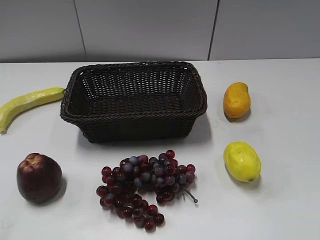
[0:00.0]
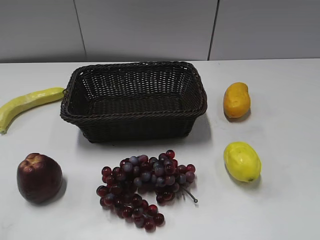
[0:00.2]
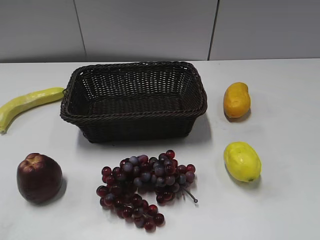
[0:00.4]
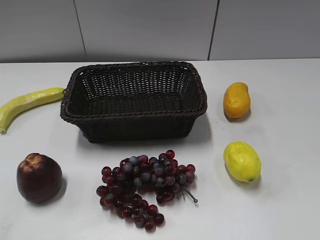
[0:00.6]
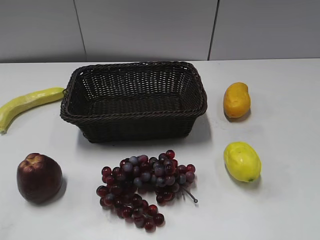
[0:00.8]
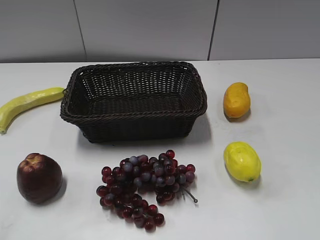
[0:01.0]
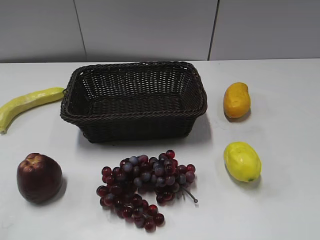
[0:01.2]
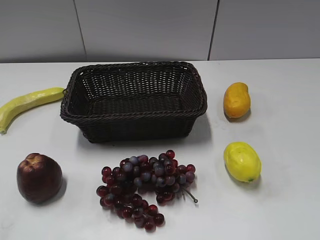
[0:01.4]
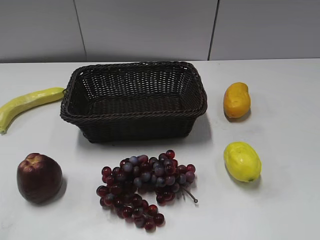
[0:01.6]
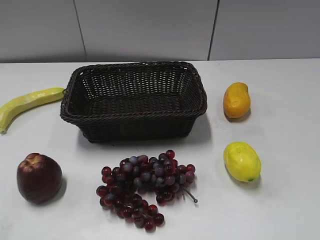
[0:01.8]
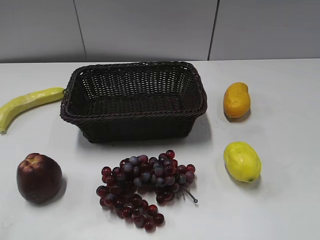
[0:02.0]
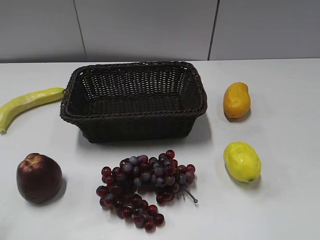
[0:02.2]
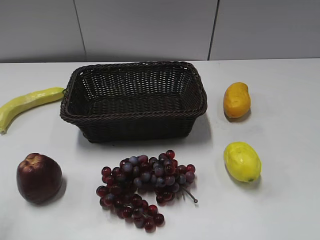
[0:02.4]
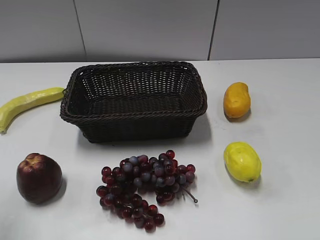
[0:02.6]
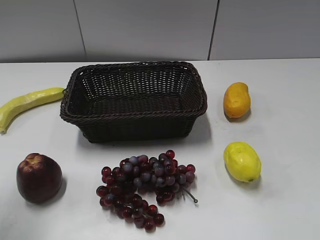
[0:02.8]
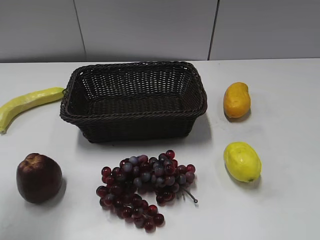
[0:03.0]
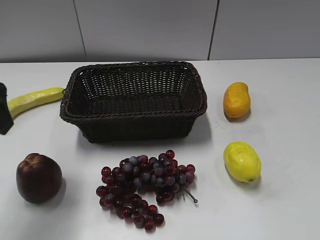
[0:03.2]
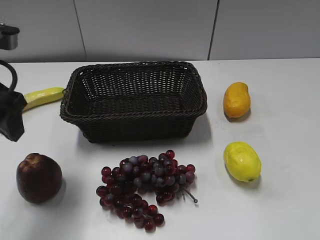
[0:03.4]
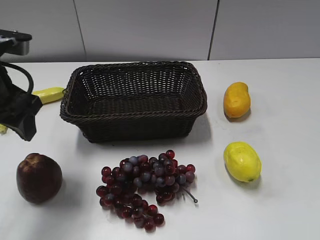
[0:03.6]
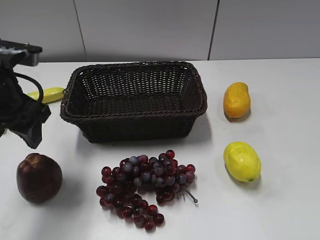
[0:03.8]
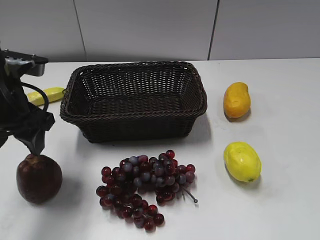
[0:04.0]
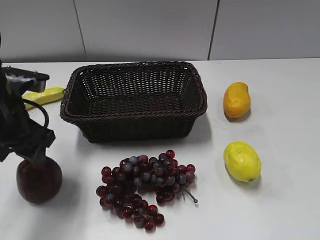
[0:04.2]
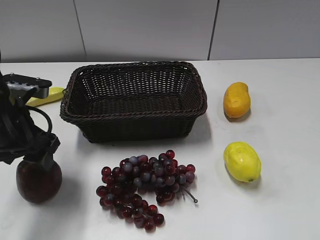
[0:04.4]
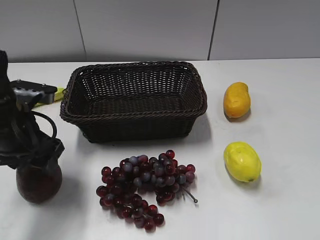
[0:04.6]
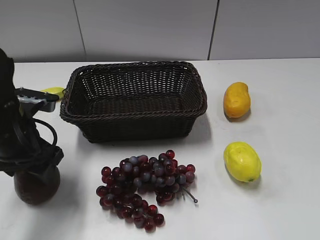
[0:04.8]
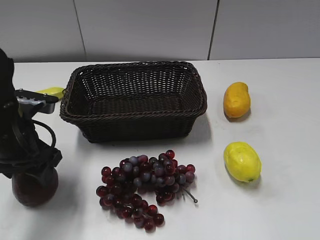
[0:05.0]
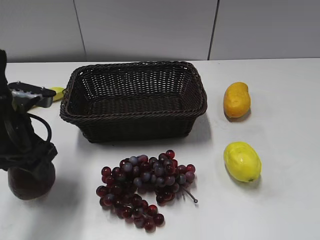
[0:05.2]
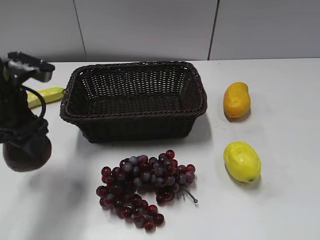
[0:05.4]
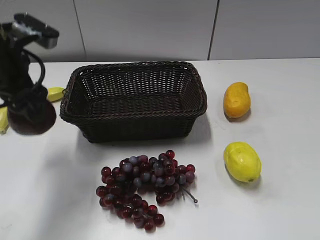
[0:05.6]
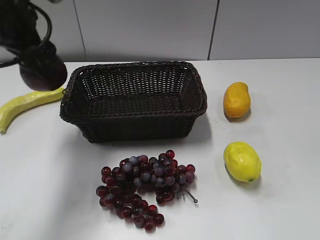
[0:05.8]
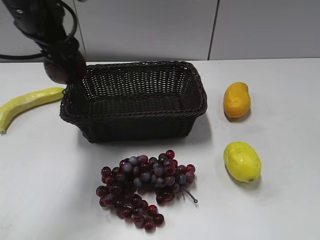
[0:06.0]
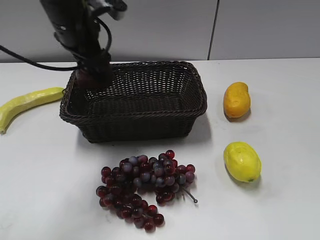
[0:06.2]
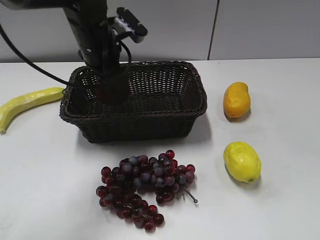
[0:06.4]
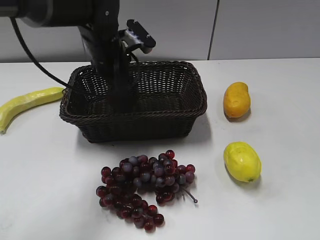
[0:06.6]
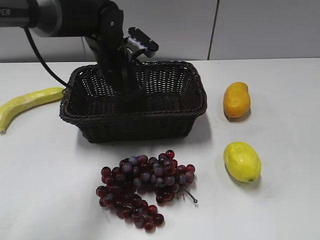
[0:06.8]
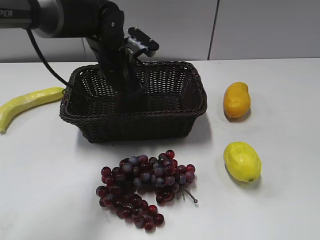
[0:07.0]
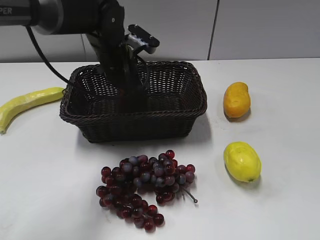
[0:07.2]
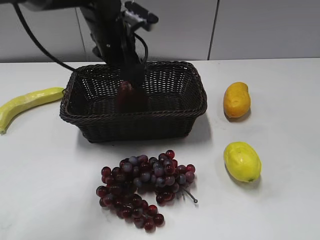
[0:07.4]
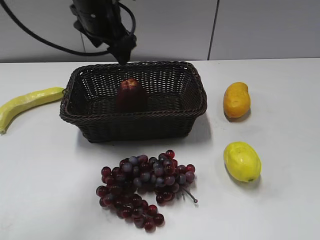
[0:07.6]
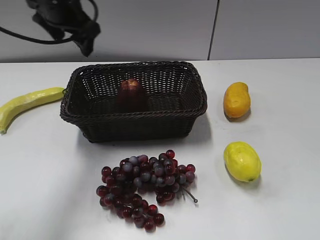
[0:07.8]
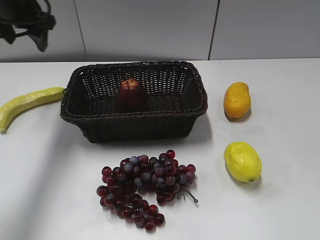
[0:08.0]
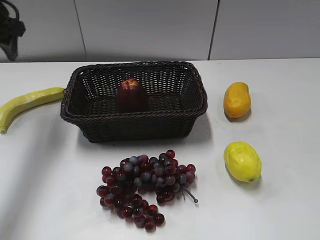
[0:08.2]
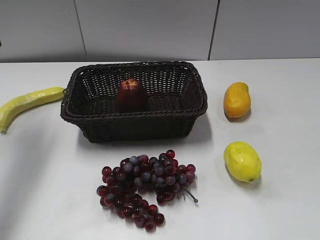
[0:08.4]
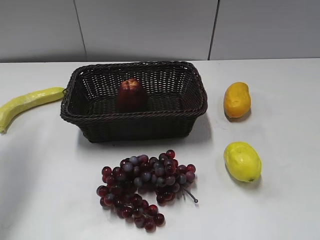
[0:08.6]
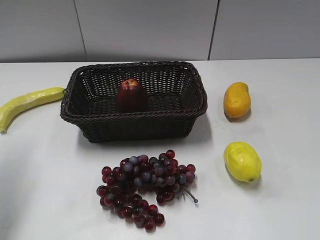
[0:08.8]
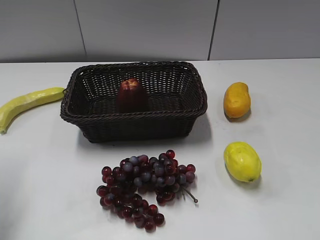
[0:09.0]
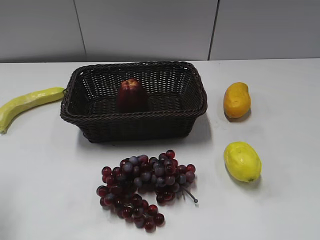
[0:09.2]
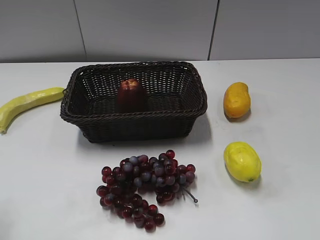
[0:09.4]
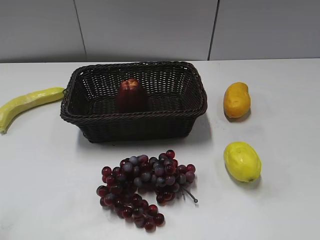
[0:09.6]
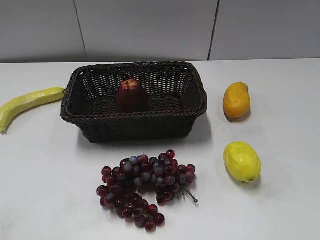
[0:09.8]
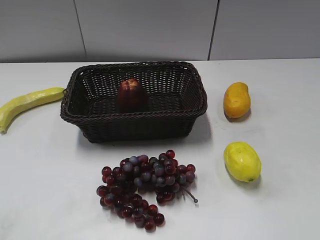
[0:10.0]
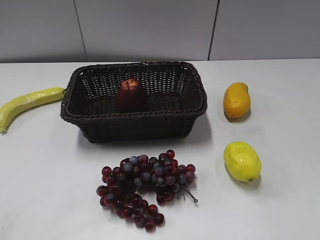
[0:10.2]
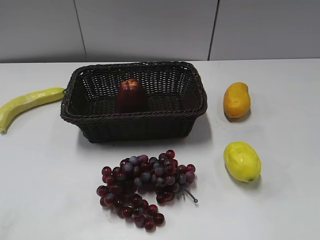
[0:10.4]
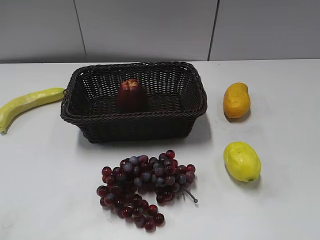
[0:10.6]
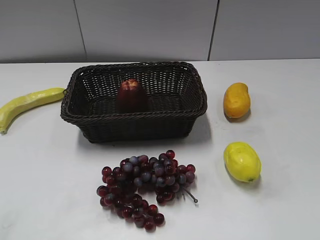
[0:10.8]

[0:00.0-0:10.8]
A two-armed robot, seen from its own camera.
Step, 0:03.2 to 0:04.6: Grasp the apple with left gripper.
Step, 0:04.8 to 0:06.8: Place the apple in the basket with left gripper.
0:01.6 to 0:03.0: The left gripper is displaced forward by some 20 cm.
0:03.0 to 0:04.6: The left gripper heads downward, covering roughly 15 cm, and opens up.
0:04.6 to 0:06.2: The left gripper heads forward, to the right and upward, covering about 20 cm, and closes.
0:06.2 to 0:07.8: The left gripper moves to the left, about 5 cm, goes downward and returns, approximately 10 cm each way, and opens, then closes once more.
0:07.8 to 0:09.2: The left gripper heads backward and to the left, covering some 30 cm.
0:09.2 to 0:10.8: The left gripper shifts some 15 cm backward.

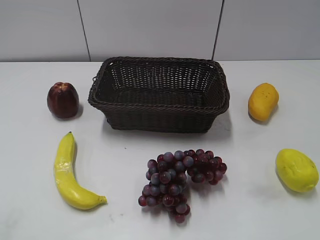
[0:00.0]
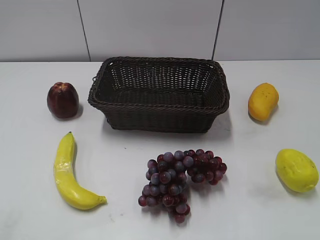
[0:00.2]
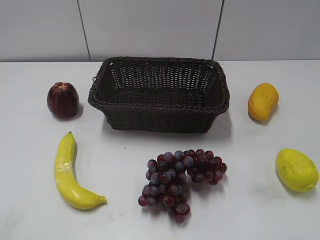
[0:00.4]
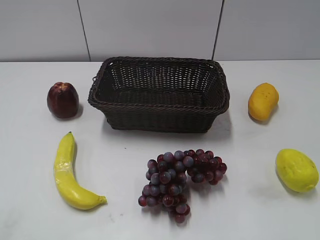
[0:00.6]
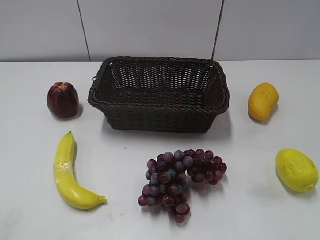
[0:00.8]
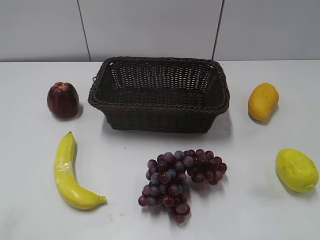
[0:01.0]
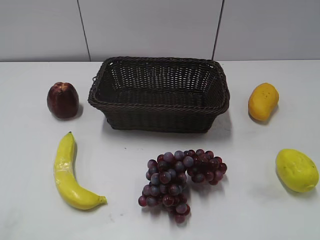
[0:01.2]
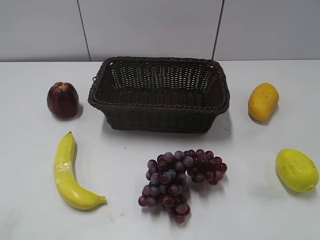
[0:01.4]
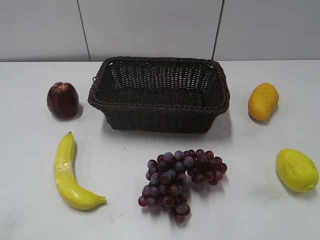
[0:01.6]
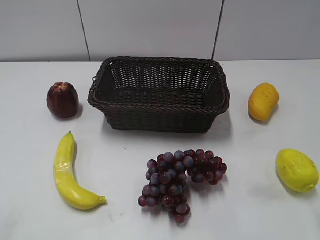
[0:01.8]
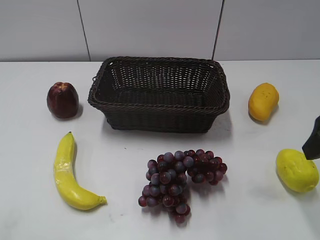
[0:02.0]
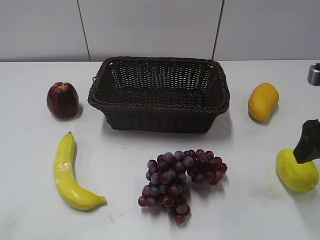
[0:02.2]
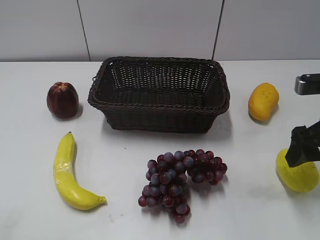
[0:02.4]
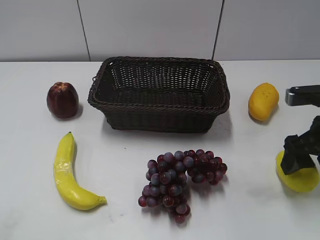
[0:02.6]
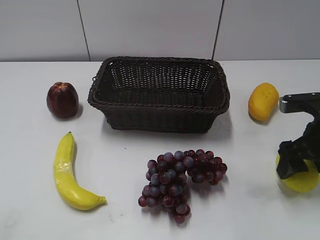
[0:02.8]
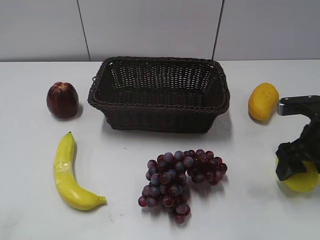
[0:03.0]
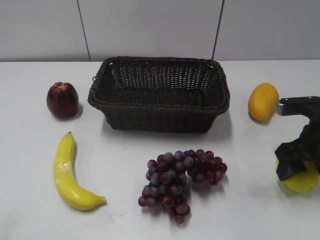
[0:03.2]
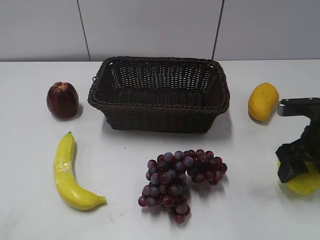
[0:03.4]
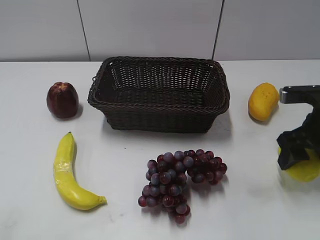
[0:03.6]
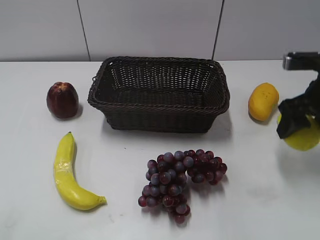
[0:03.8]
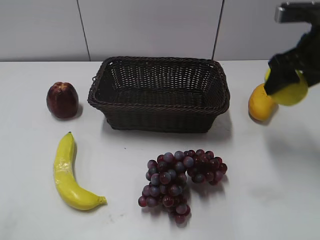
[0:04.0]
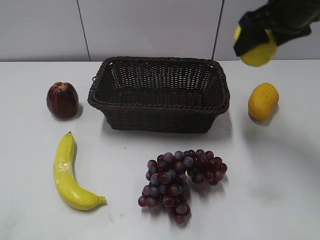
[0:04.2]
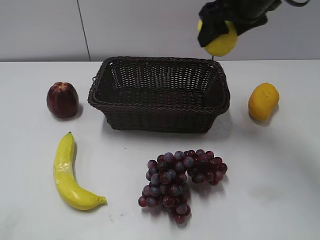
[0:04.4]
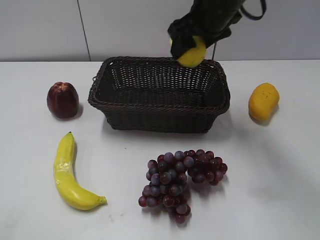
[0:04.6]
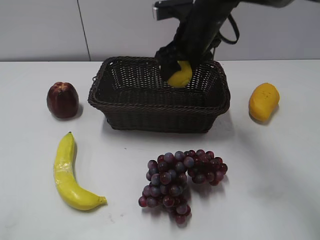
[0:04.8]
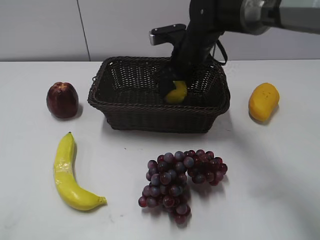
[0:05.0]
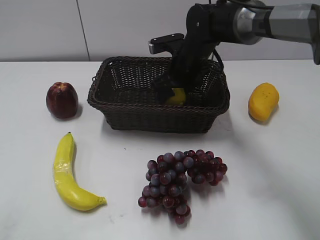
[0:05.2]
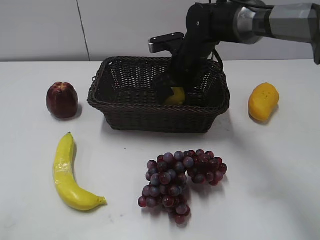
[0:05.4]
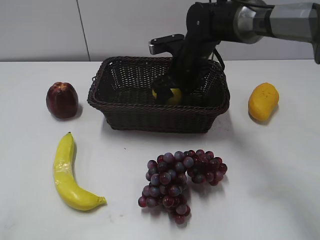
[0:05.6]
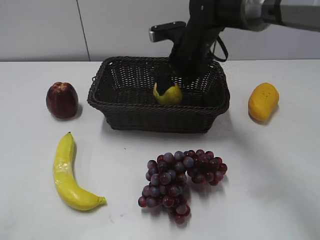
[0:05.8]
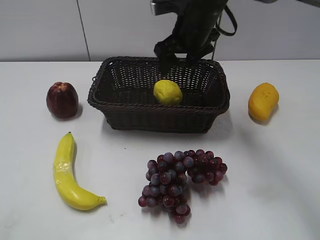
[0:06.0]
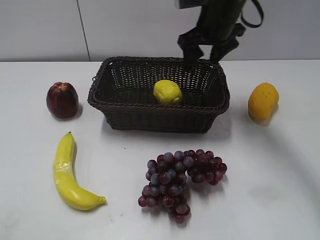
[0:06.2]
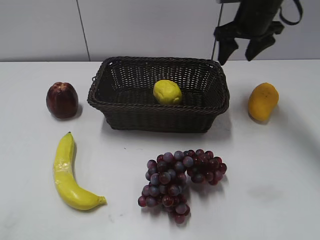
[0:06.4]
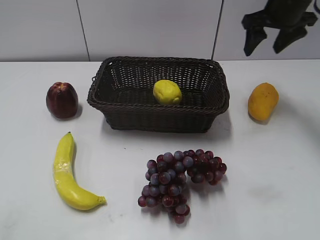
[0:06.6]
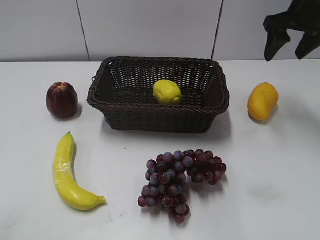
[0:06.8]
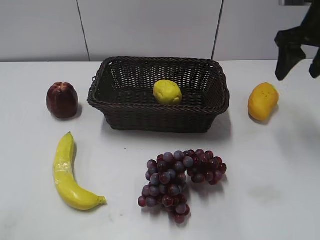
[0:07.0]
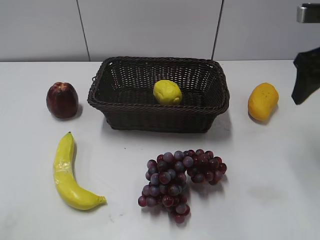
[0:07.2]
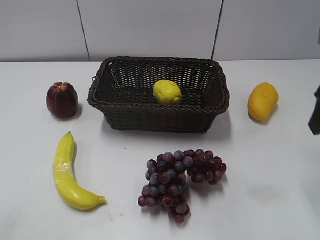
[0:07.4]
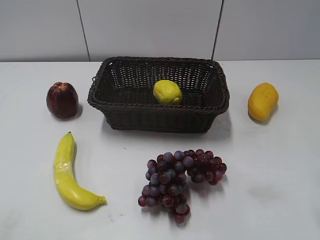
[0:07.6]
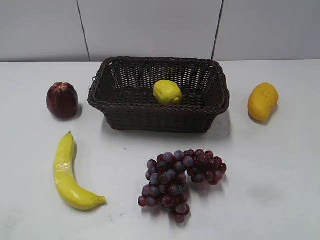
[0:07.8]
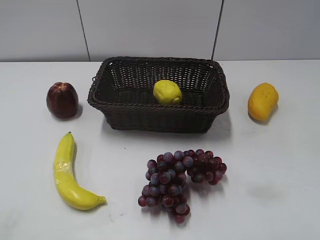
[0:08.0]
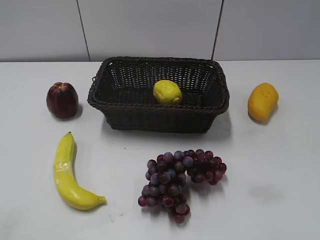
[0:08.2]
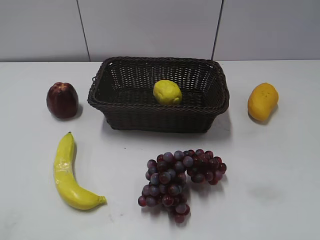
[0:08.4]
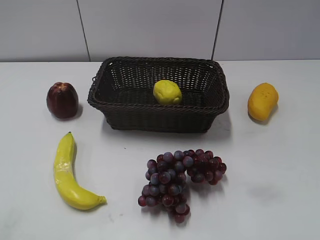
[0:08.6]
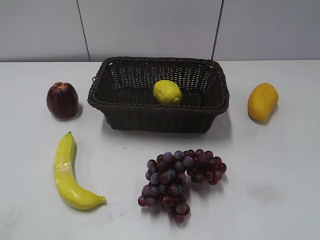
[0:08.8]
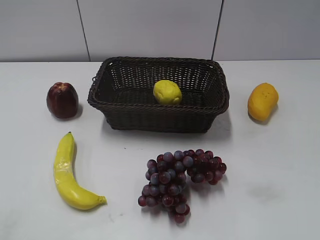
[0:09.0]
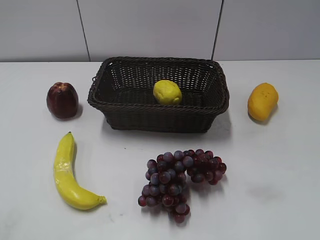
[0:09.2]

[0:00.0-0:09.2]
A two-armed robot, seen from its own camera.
Step, 0:02.0 to 0:03.0: Grasp the lemon with right gripper.
Step, 0:03.4 to 0:05.6: Place the lemon in the basket with right gripper.
0:01.6 to 0:03.0: The right gripper shifts some 15 cm downward and forward, and closes up.
0:03.0 to 0:04.6: The right gripper shifts some 25 cm to the left and forward.
0:04.6 to 0:06.2: The right gripper is displaced to the right by approximately 10 cm, and opens its fingers.
0:06.2 to 0:07.6: The right gripper heads backward, covering about 30 cm.
